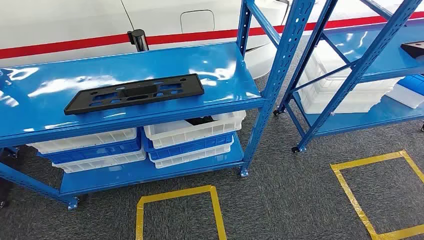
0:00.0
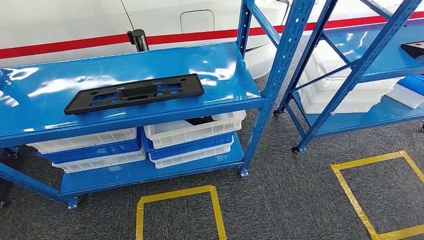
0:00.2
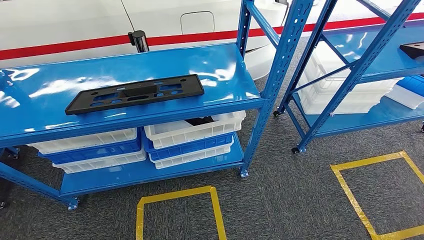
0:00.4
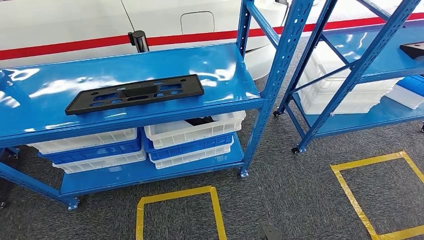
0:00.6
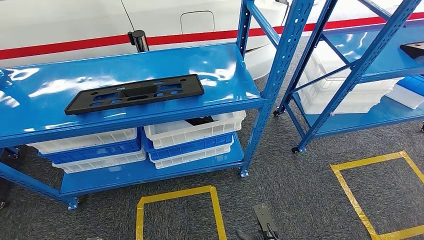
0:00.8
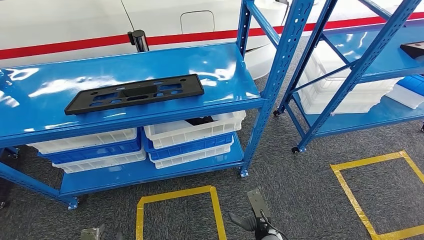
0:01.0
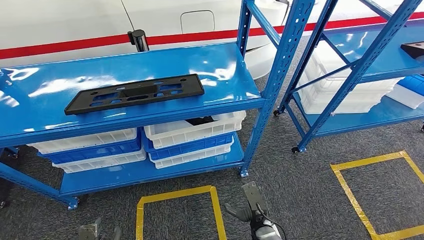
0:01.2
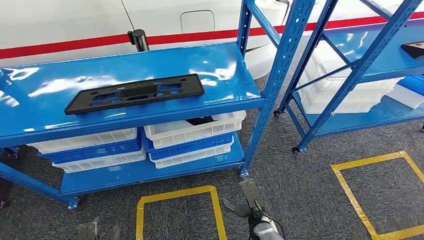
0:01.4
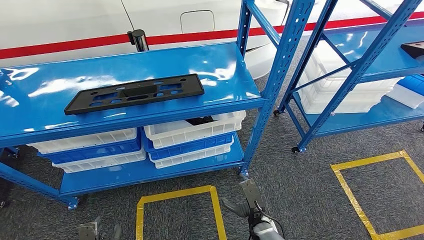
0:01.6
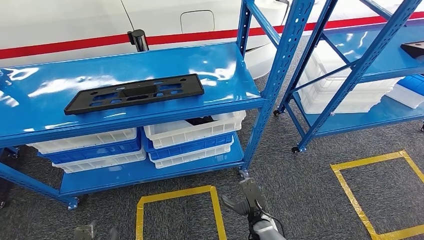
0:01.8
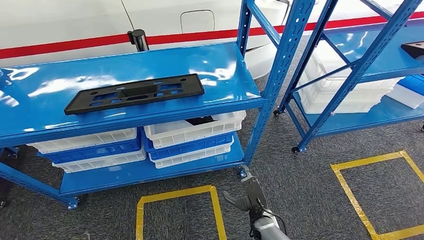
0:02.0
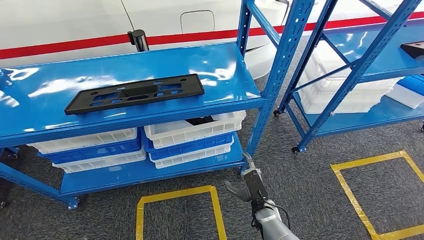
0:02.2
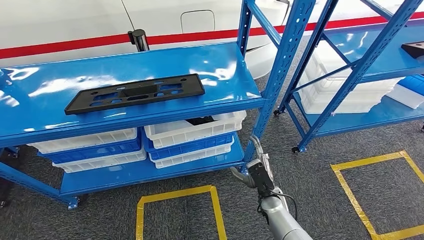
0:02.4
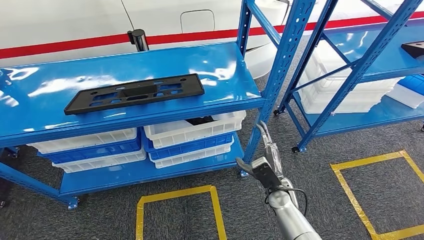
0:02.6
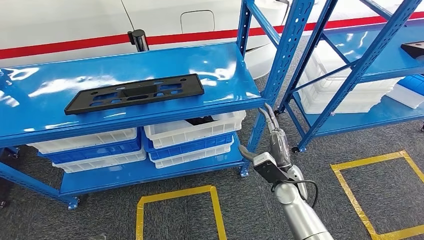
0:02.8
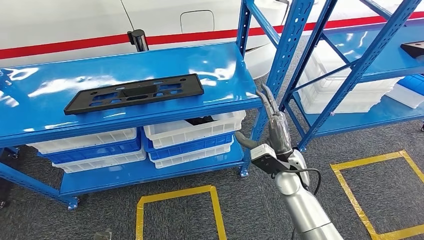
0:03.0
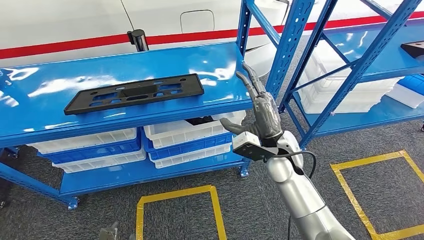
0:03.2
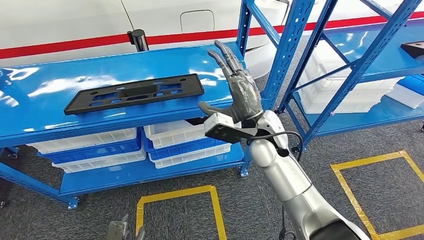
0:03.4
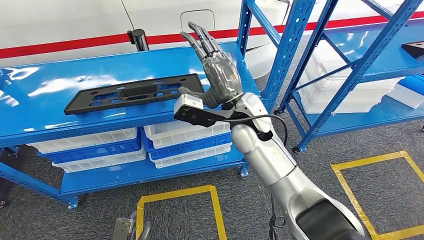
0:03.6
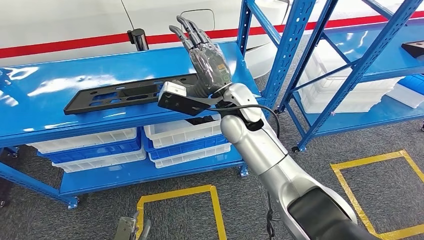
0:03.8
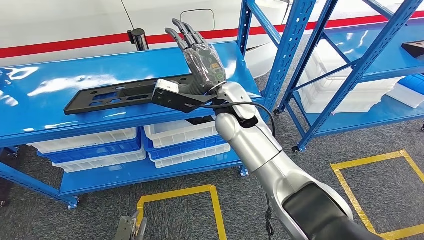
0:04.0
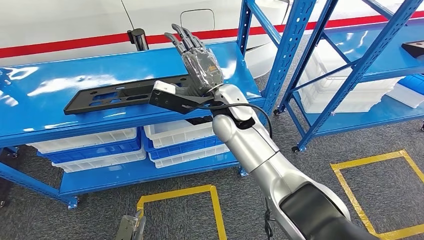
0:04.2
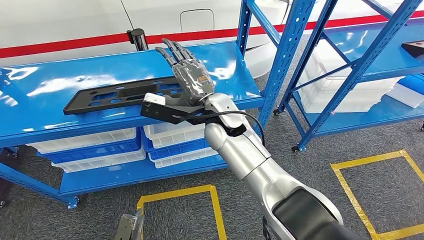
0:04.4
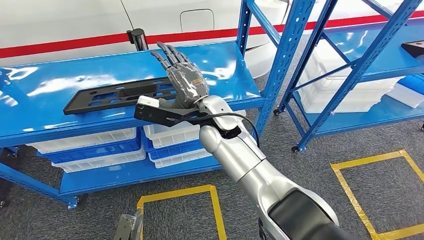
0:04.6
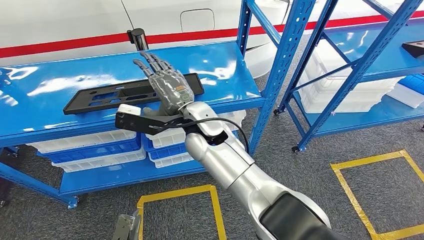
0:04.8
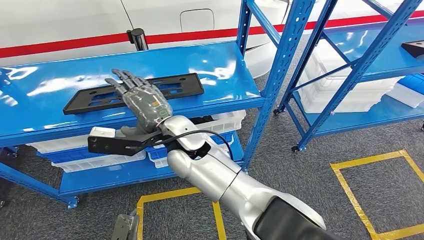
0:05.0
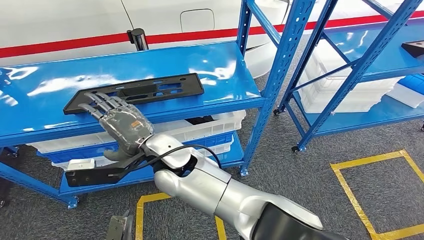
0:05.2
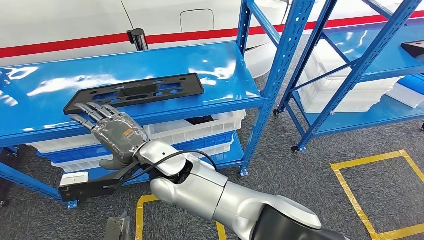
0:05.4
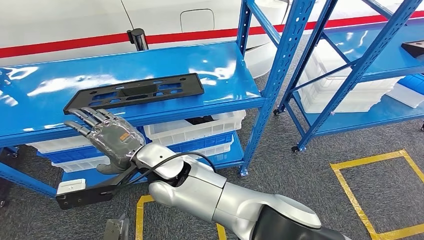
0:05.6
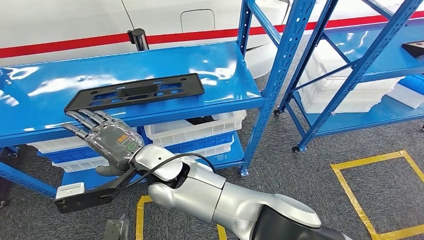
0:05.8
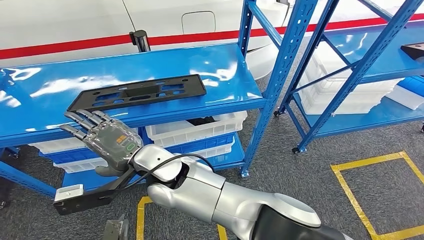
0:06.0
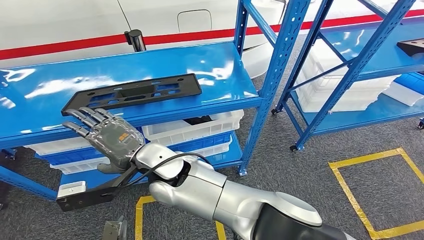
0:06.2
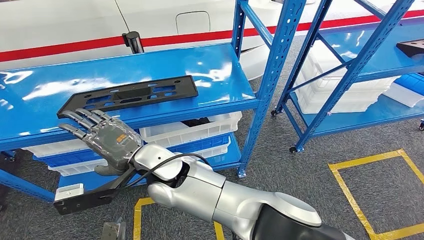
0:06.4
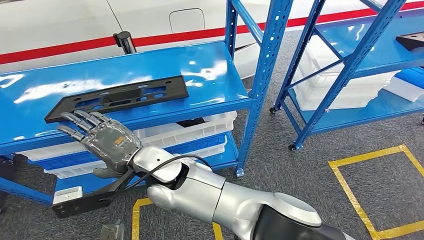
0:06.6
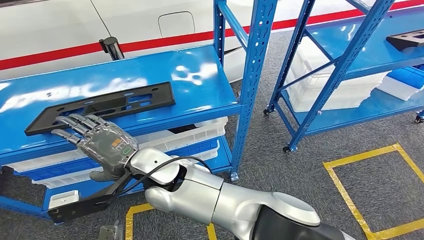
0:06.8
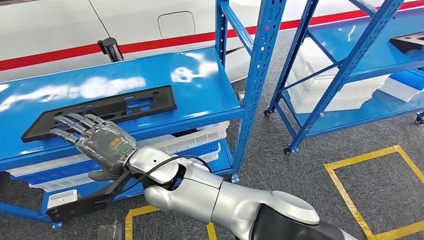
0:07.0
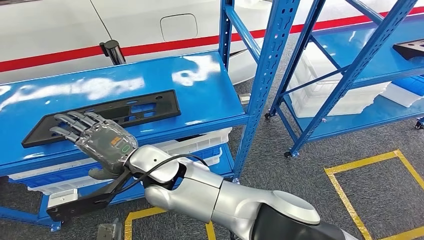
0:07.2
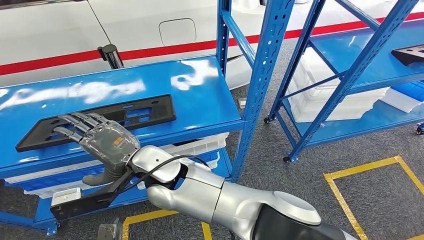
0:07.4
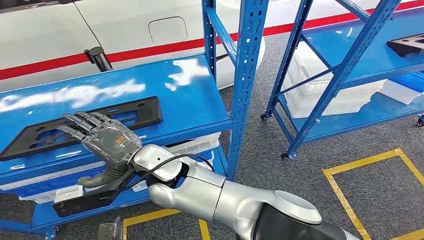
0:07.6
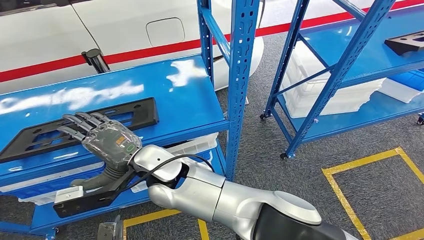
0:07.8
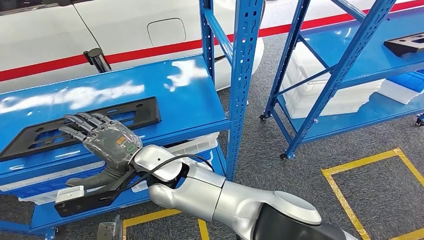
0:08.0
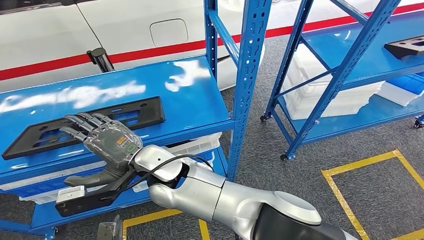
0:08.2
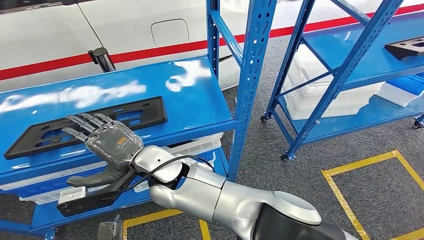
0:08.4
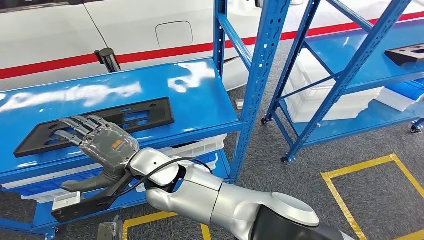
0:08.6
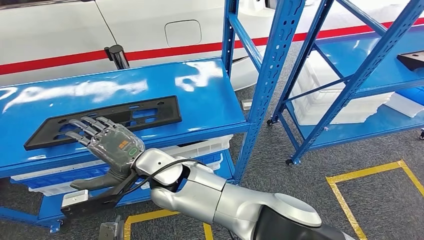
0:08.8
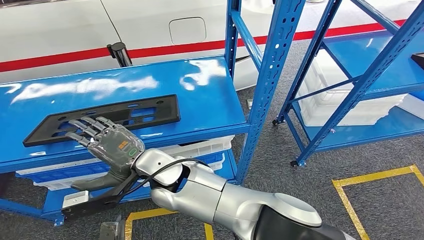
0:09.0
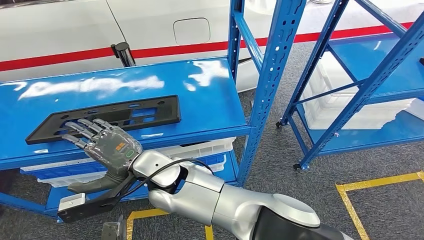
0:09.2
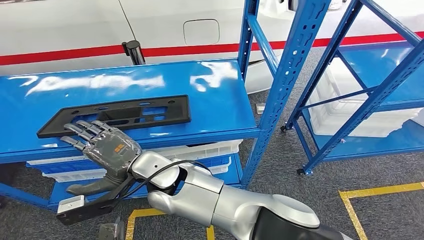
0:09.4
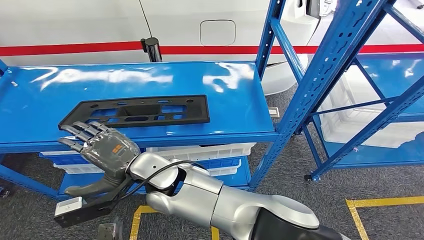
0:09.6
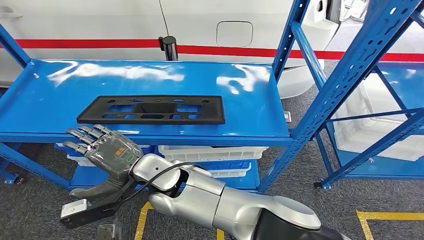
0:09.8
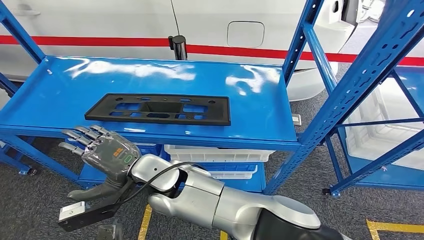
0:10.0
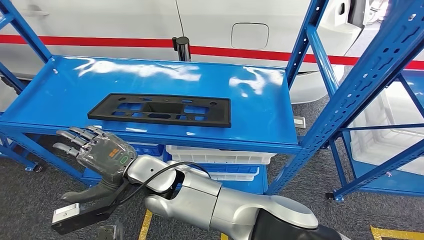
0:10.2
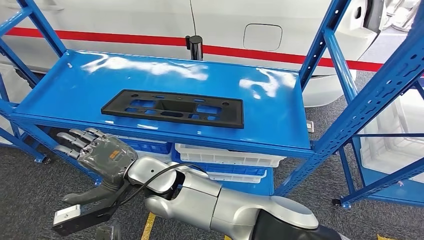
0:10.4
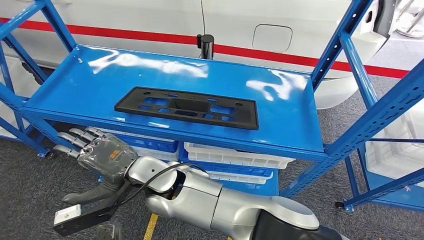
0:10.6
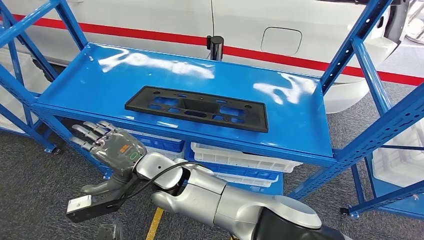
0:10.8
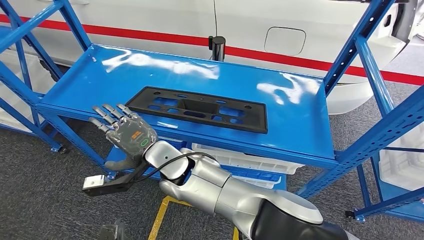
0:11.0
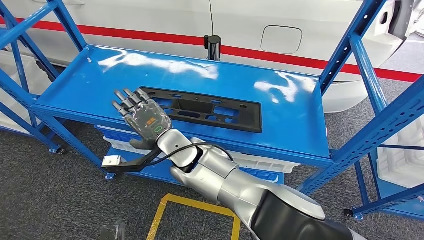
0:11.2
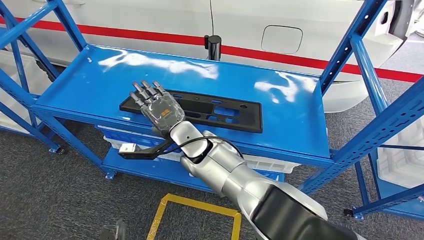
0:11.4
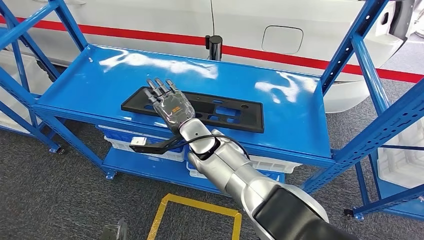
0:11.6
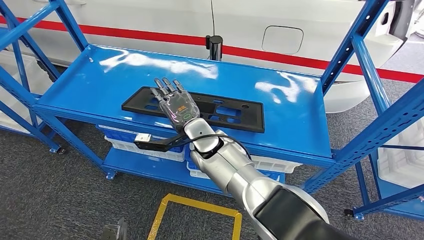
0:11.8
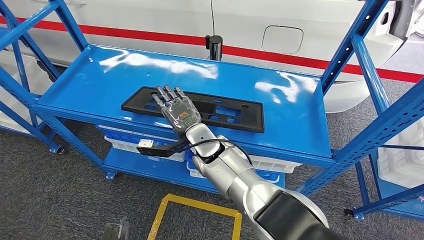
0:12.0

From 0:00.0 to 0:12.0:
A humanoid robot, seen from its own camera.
From 0:01.6 to 0:03.0: The right hand travels upward and forward by some 25 cm.
From 0:03.0 to 0:04.4: The right hand goes approximately 25 cm to the left, upward and forward; the left hand ends up approximately 5 cm from where it was.

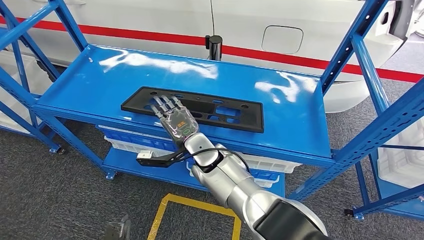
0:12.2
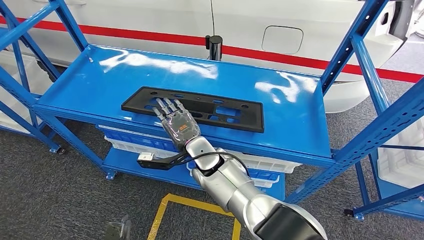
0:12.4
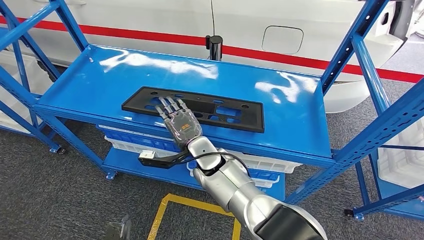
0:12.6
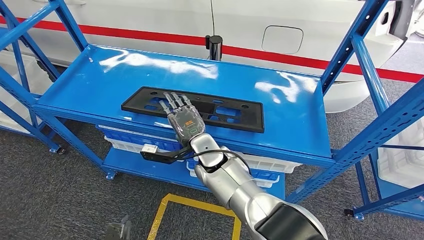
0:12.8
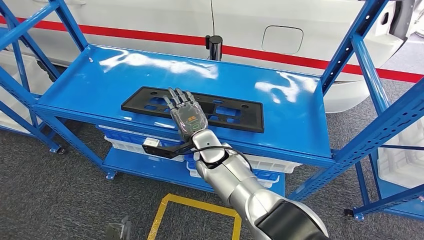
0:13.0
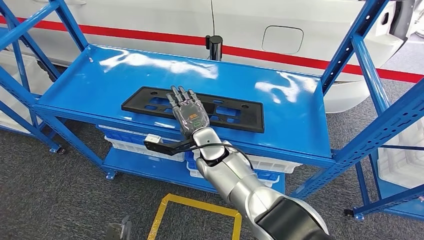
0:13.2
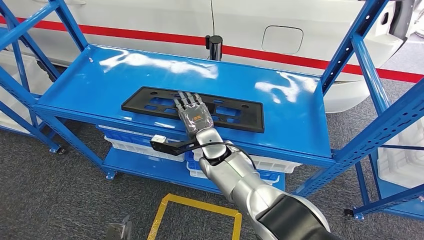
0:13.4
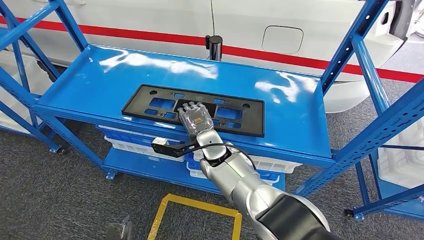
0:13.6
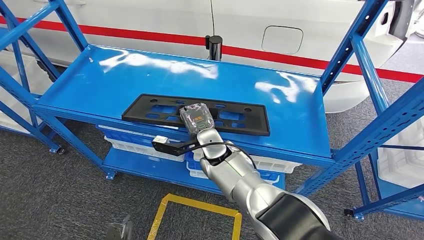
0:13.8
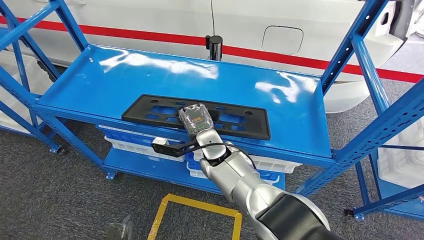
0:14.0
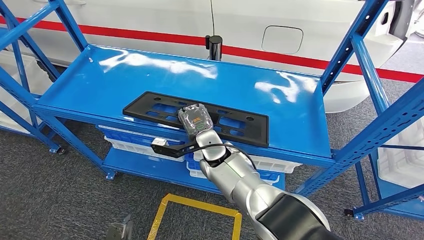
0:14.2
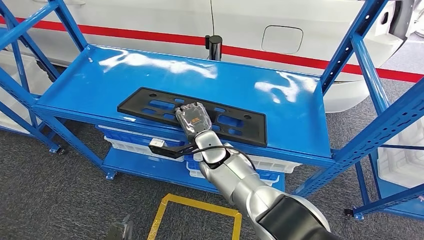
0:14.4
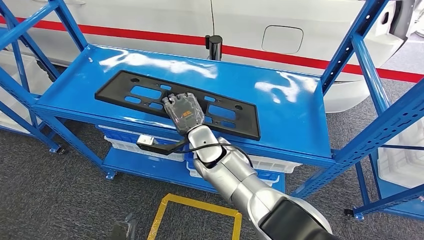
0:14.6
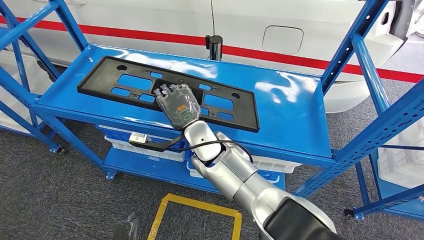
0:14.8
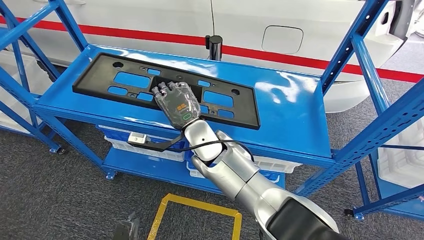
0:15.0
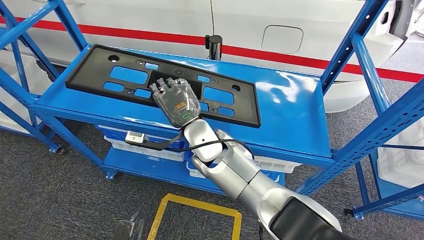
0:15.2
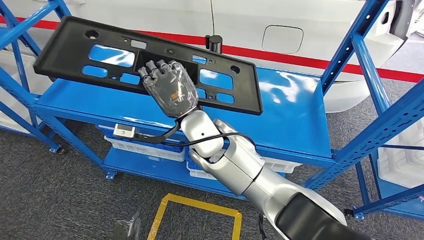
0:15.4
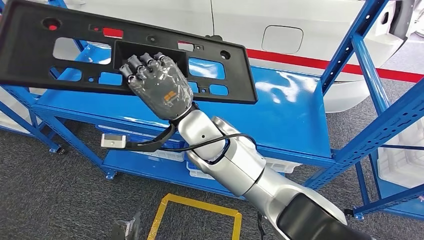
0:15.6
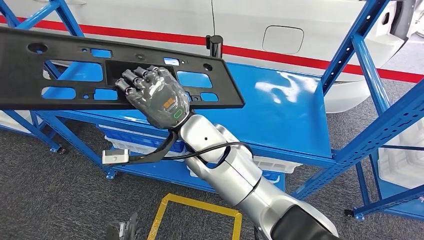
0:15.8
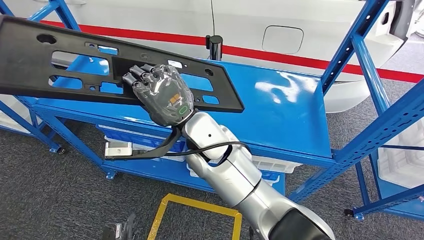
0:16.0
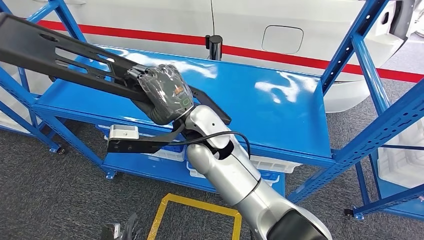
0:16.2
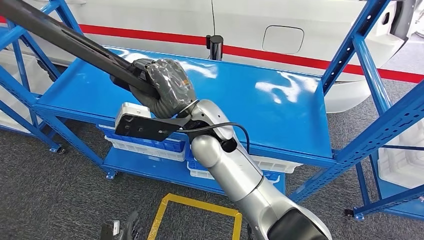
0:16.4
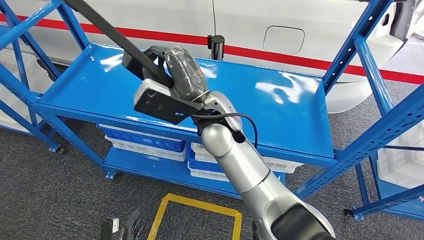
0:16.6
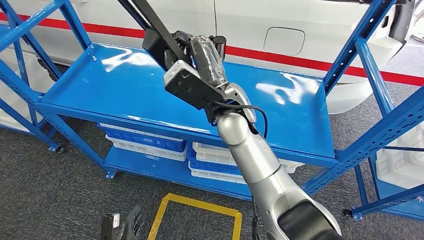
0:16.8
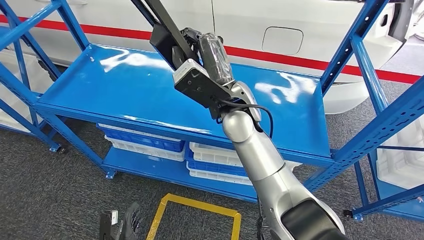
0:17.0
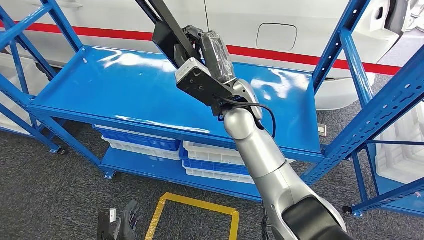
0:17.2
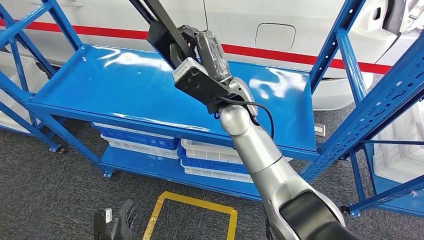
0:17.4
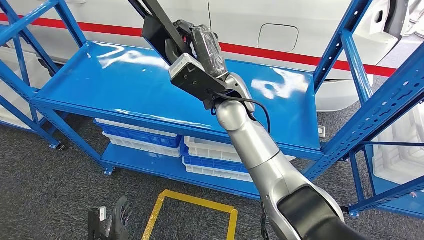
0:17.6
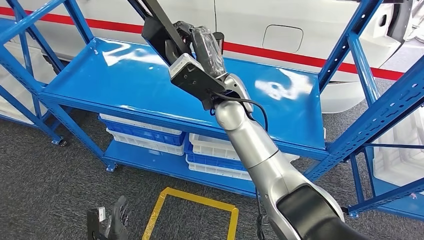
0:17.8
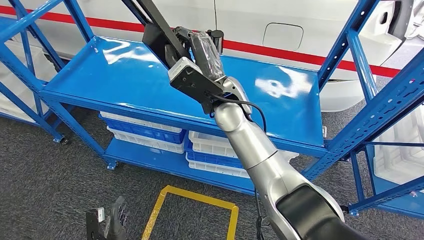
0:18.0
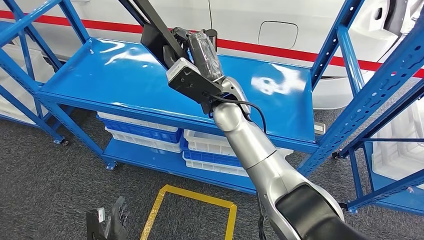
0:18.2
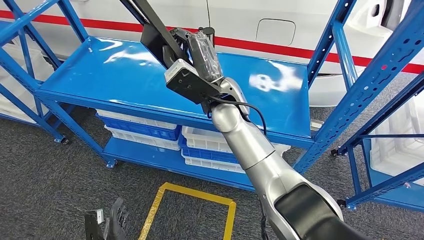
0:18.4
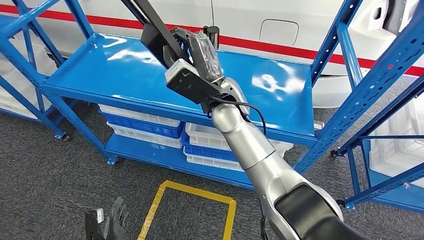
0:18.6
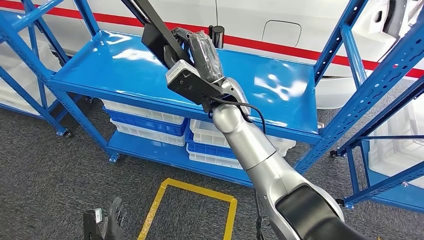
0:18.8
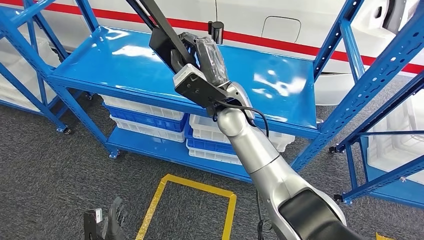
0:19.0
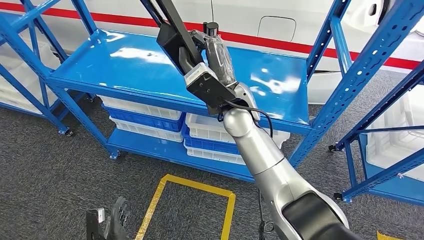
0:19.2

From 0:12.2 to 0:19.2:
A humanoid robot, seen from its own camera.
Step, from 0:12.2 to 0:15.0: Pick up the large material from the shelf.
From 0:12.2 to 0:13.6: The hands make only small movements.
From 0:13.6 to 0:15.0: The right hand heads upward, covering about 5 cm.
From 0:15.0 to 0:16.4: The right hand is displaced upward by some 10 cm.
